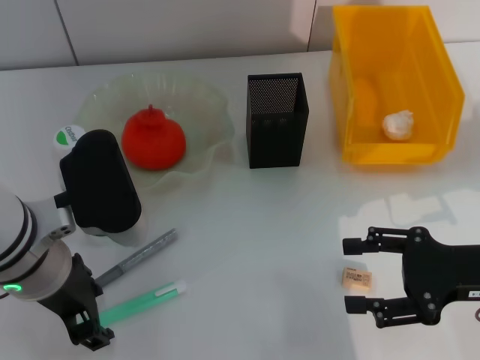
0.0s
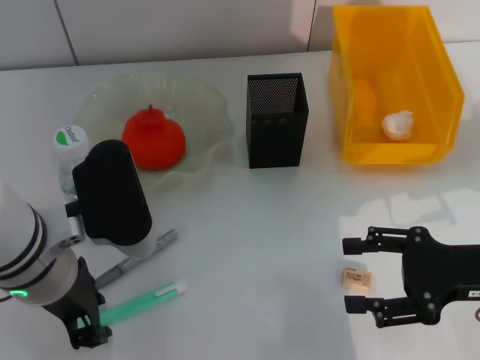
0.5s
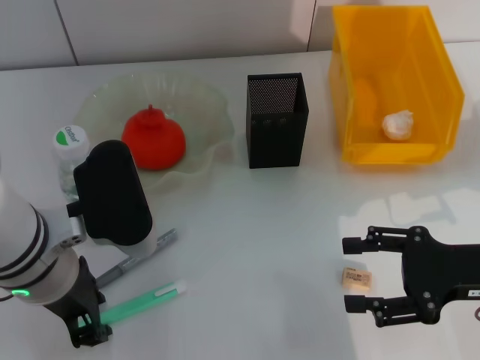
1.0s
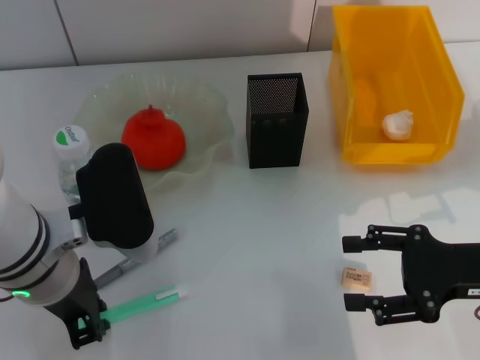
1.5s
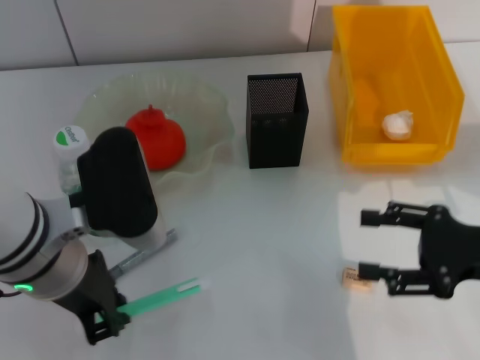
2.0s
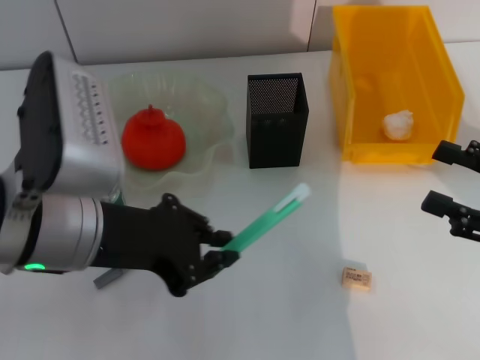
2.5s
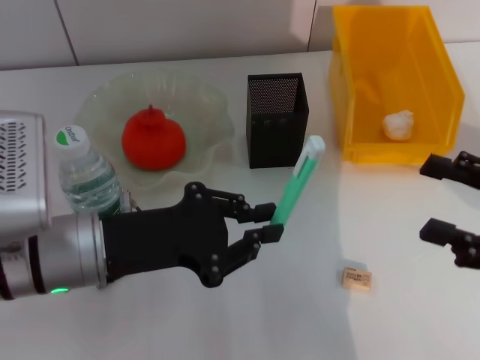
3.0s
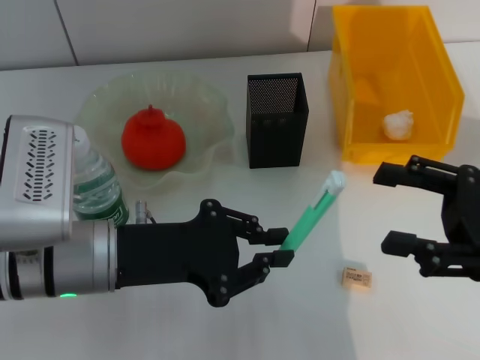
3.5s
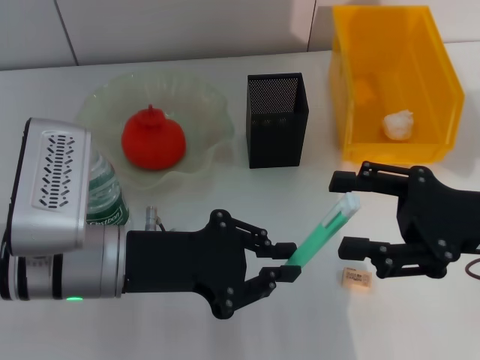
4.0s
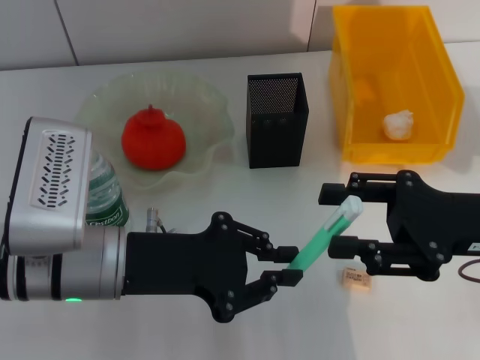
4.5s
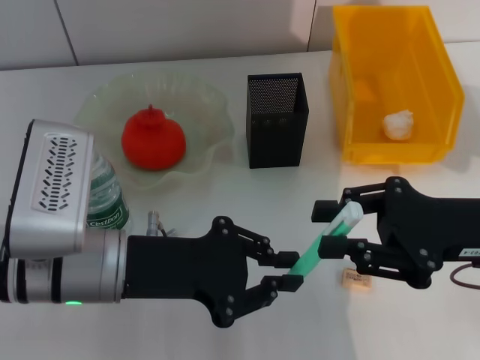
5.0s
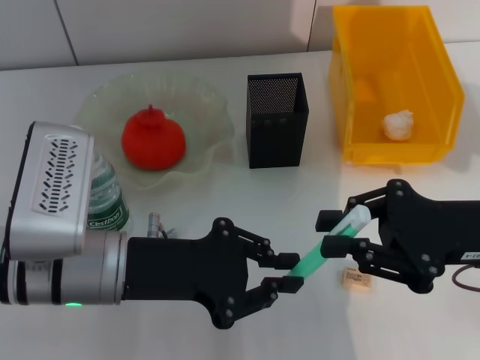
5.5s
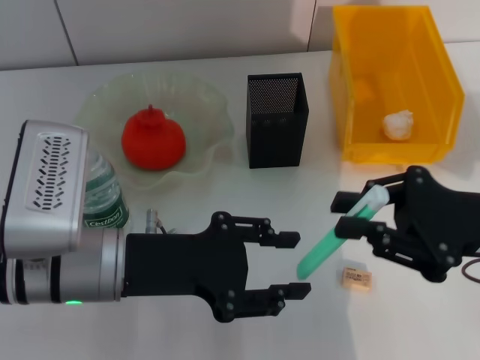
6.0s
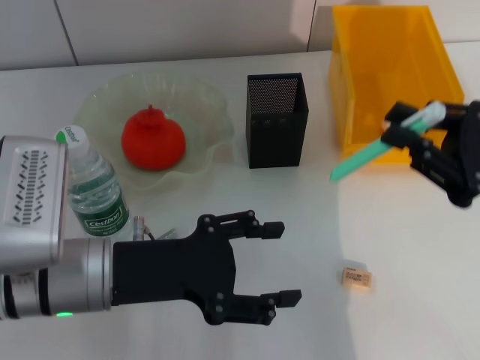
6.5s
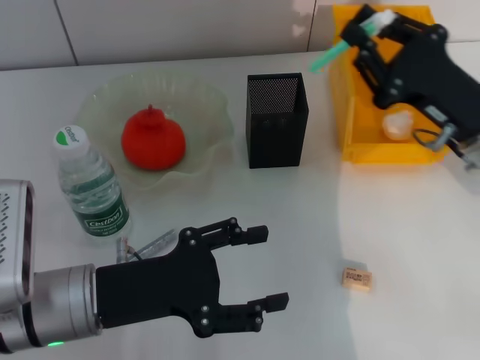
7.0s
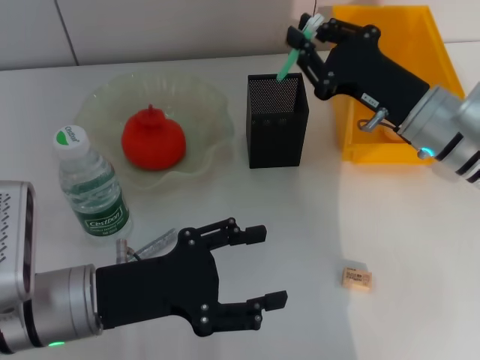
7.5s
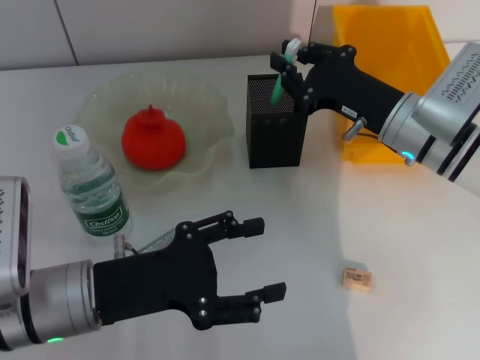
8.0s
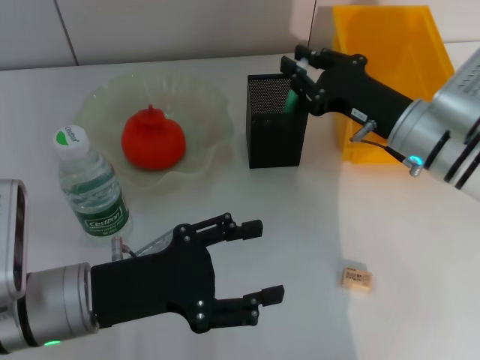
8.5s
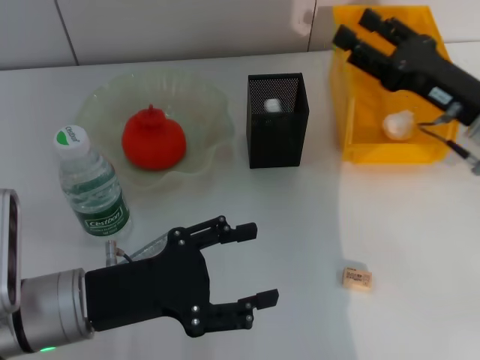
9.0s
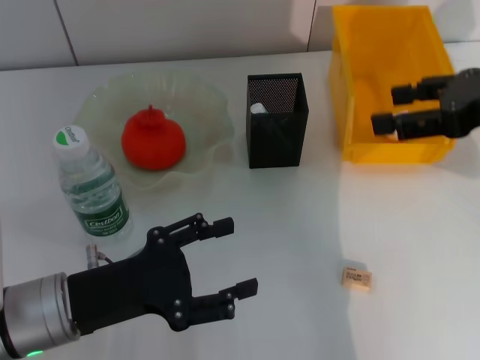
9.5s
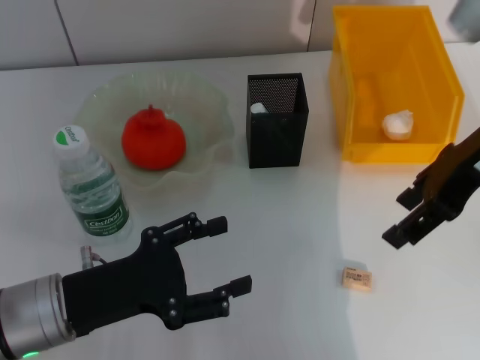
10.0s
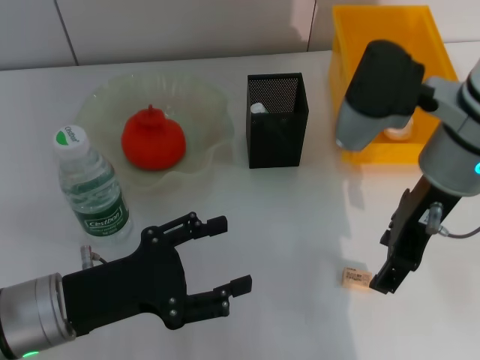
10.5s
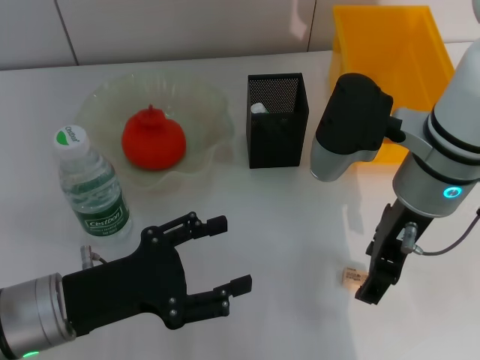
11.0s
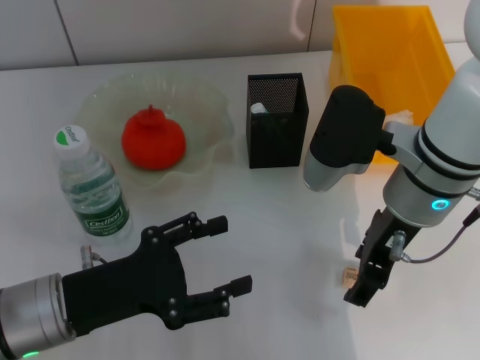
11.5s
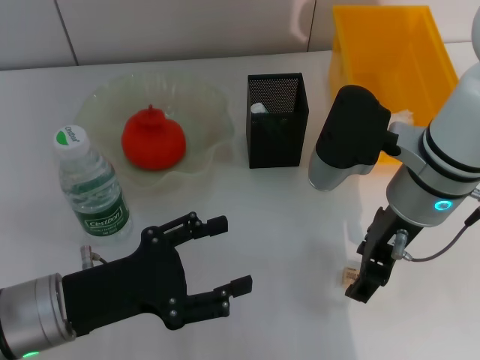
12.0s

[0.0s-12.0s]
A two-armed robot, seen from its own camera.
Step, 2.0s to 5.5s: Pass the blue utility knife from the left hand to the right hand.
Step, 6.0s to 8.5s: Place the blue utility knife into the pen holder with the right hand.
0.0s to 2.0s: The left gripper closes up.
4.0s to 6.0s: The left gripper opens its fingers. Meanwhile the right gripper closes up.
6.0s to 8.0s: The left gripper ends up some 5 cm from where it was, and opens its fingers. The right gripper travels forward and to the left by about 15 cm.
8.0s to 10.0s: The right gripper heads upward, covering some 15 cm, and opens its fingers.
10.0s to 12.0s: The right gripper is displaced downward and to the left by about 10 cm.

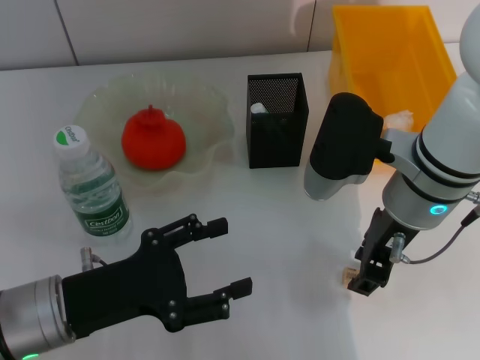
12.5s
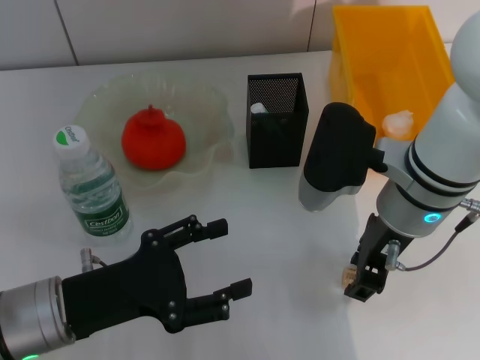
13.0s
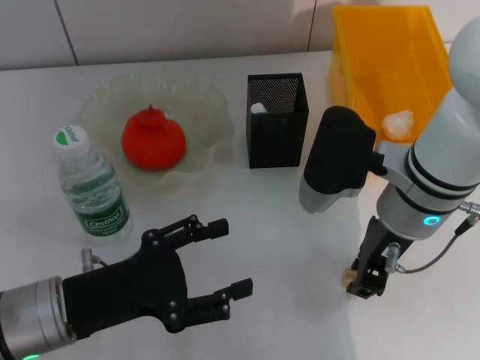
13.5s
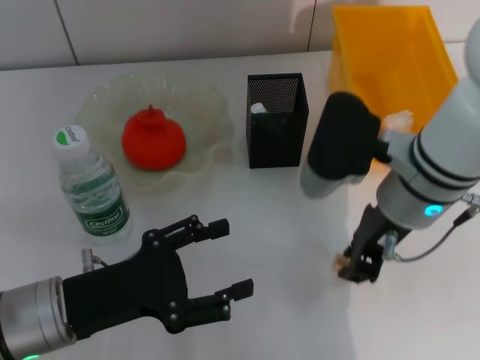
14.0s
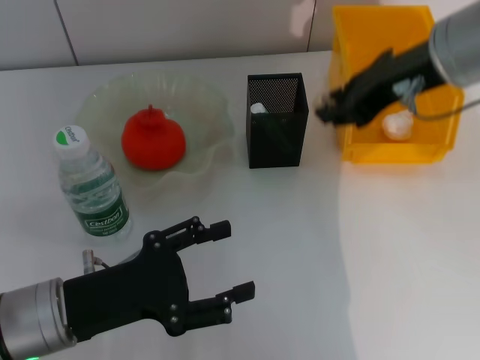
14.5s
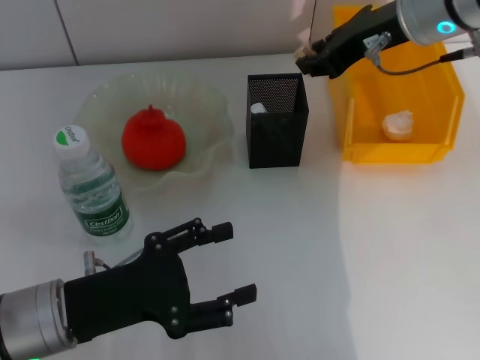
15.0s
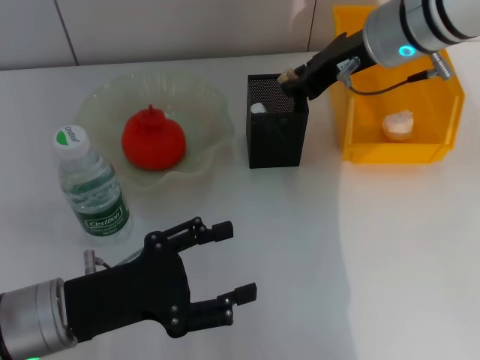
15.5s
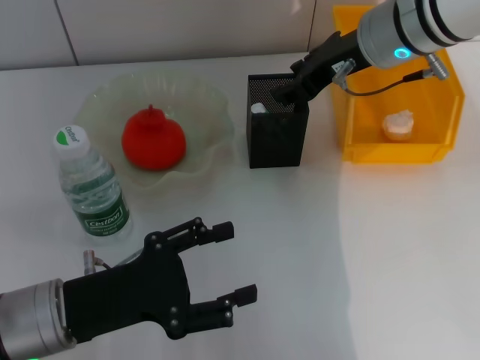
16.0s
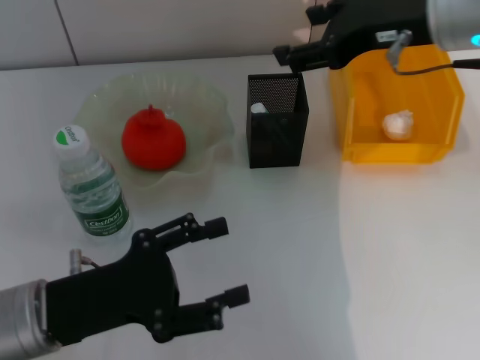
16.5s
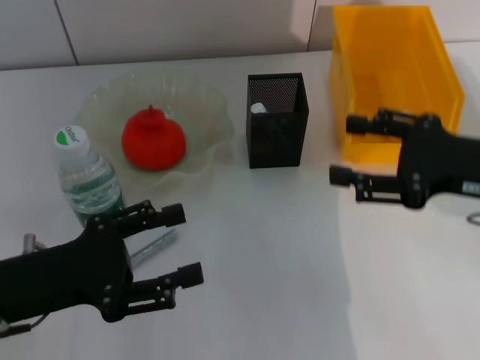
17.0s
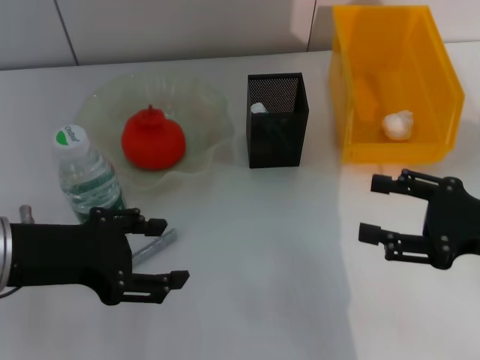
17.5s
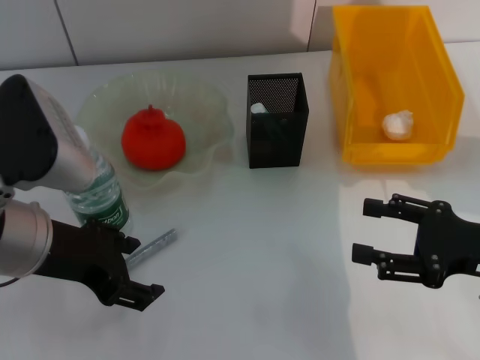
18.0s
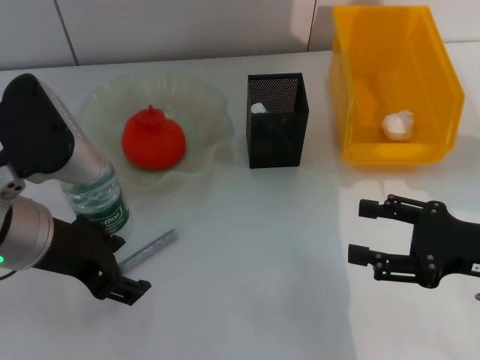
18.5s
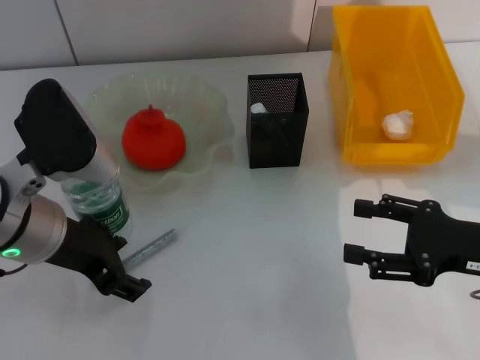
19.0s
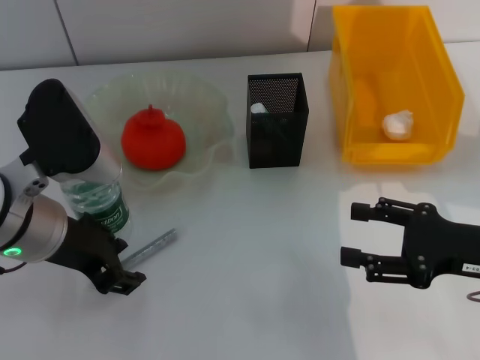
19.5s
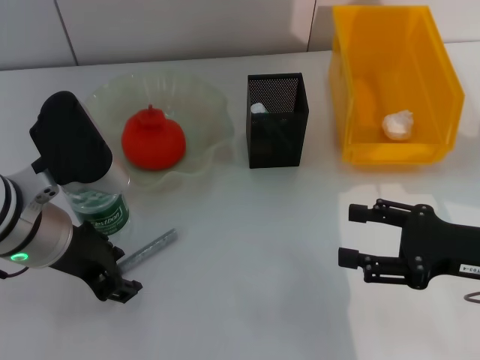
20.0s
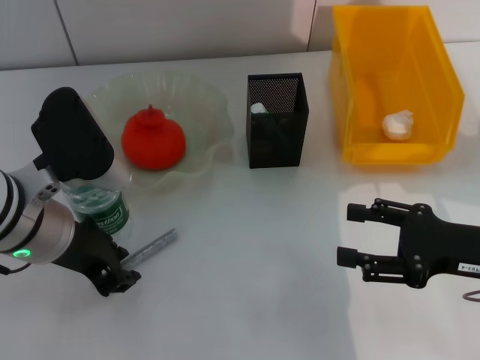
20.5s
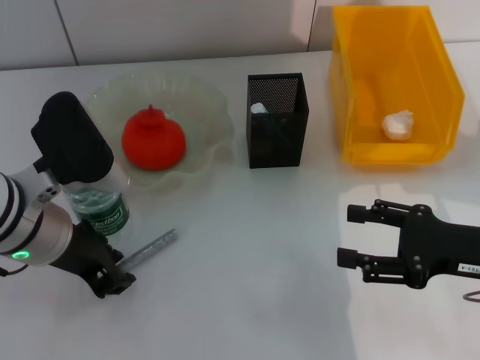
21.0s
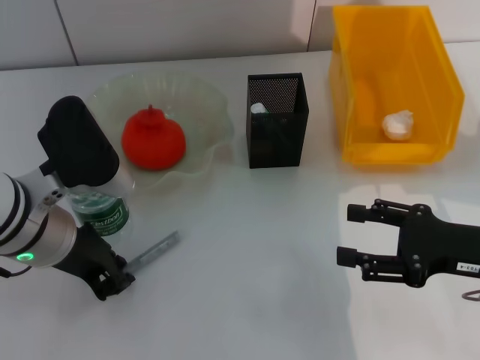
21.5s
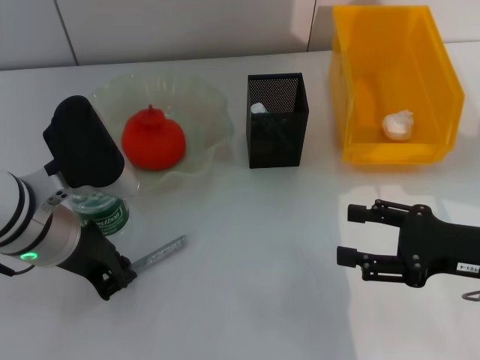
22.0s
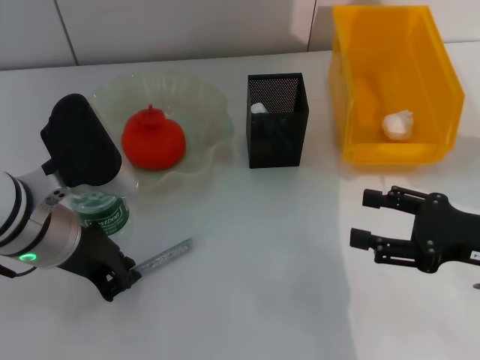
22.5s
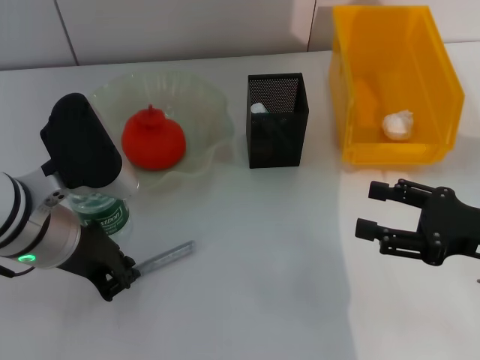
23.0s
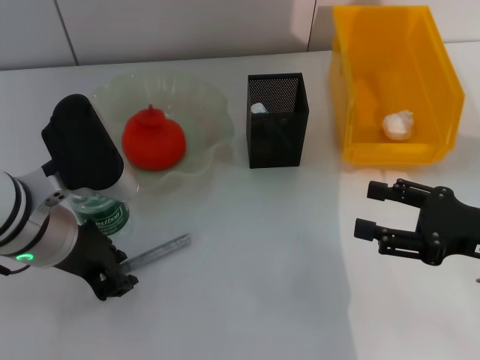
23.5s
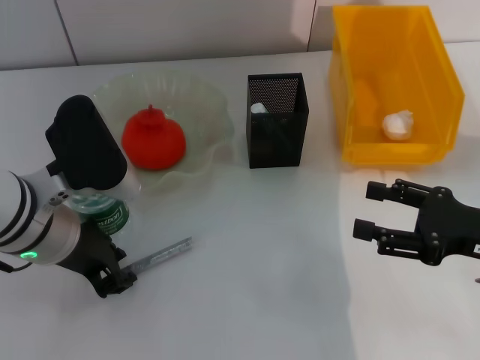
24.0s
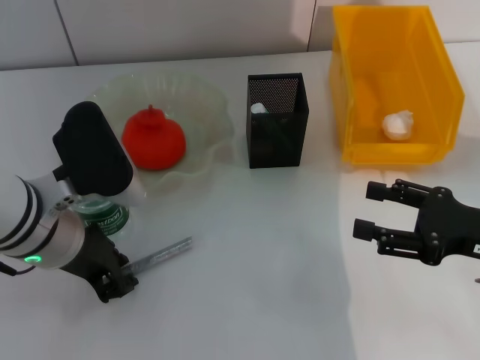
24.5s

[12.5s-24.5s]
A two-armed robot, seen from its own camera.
Step, 14.0s to 16.0s: Put the eraser into the pen holder with the right hand.
Step, 16.5s to 22.0s: Grab the gray glue with the left hand.
12.5s to 14.5s: The right gripper is displaced upward by approximately 10 cm, and closes its fingers.
14.5s to 16.5s: The right gripper opens up.
16.5s to 18.5s: The right gripper moves downward, backward and to the right, roughly 25 cm. The left gripper shifts approximately 10 cm upward and forward.
18.5s to 20.5s: The left gripper closes its fingers.
20.5s to 22.5s: The left gripper closes.
22.5s to 24.5s: The two grippers keep their place.

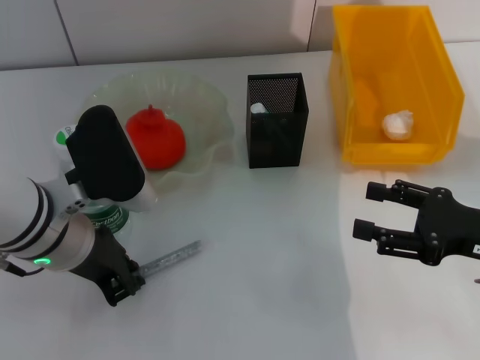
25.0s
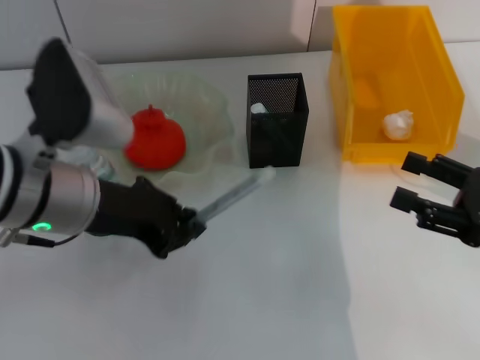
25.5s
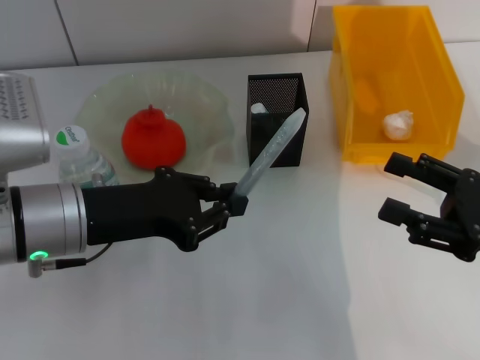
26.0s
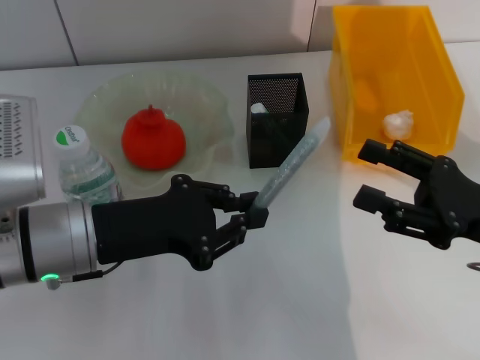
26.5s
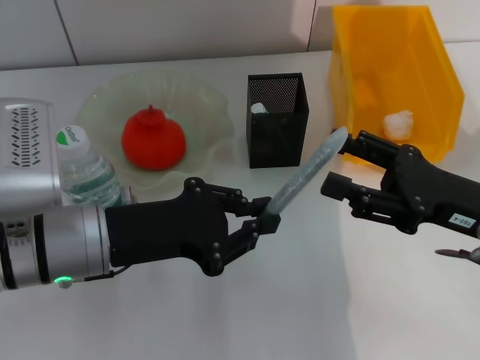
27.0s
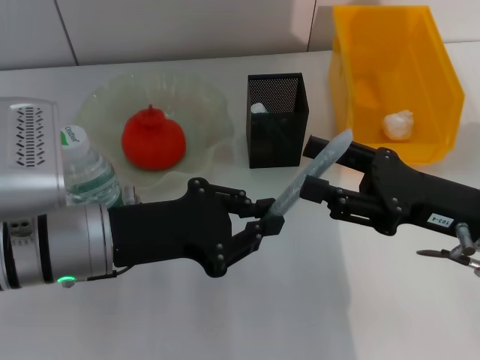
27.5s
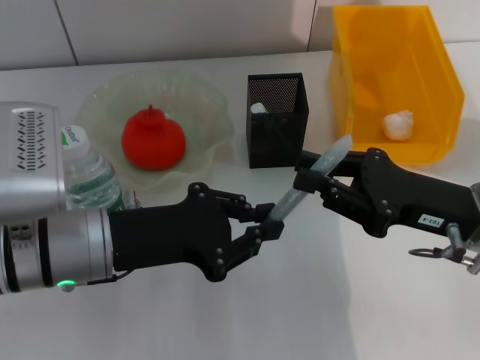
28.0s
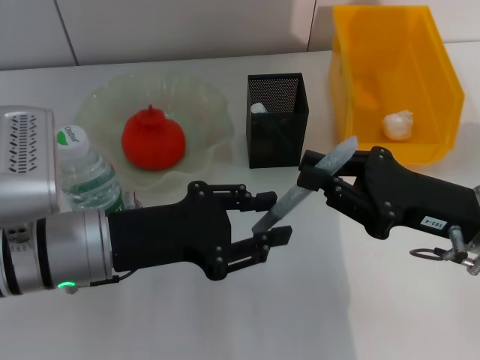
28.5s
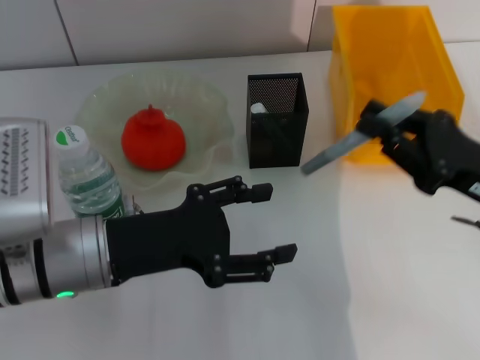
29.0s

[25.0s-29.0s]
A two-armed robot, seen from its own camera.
Step, 25.0s to 28.5s: Pass the gray glue from the left hand to the right hand.
27.0s to 29.0s: The left gripper opens; the right gripper closes up.
